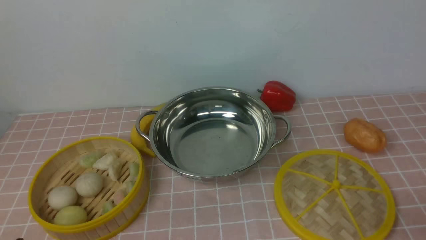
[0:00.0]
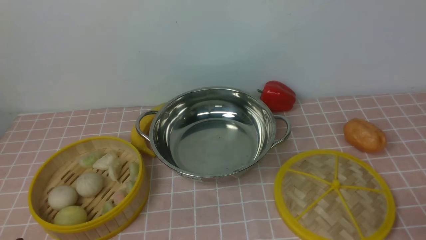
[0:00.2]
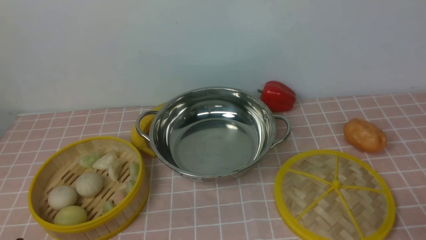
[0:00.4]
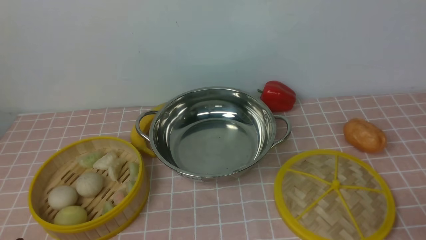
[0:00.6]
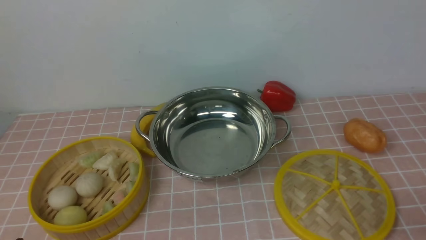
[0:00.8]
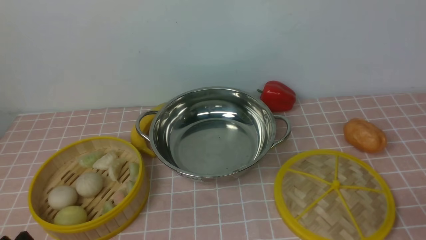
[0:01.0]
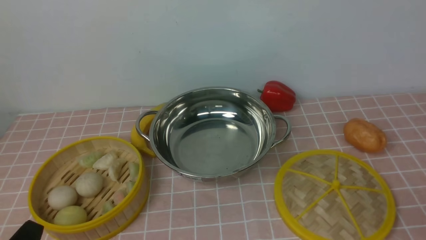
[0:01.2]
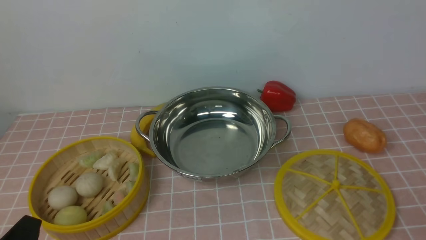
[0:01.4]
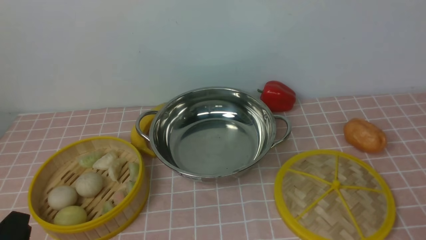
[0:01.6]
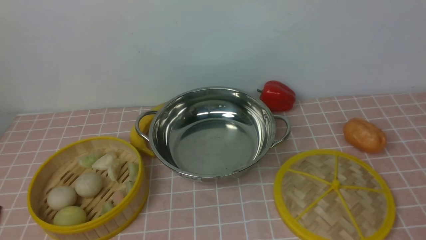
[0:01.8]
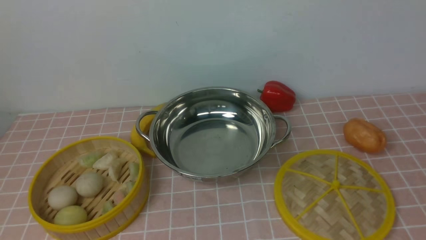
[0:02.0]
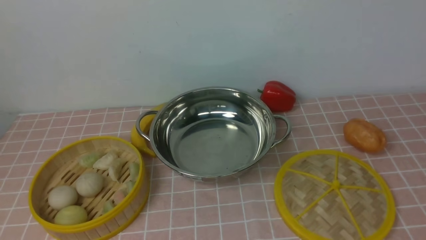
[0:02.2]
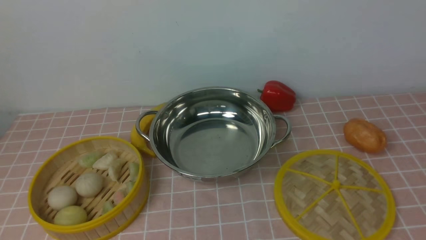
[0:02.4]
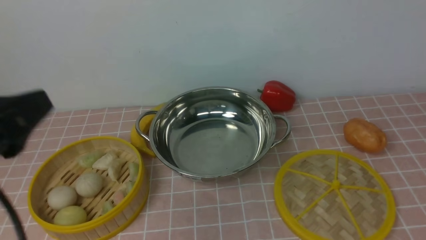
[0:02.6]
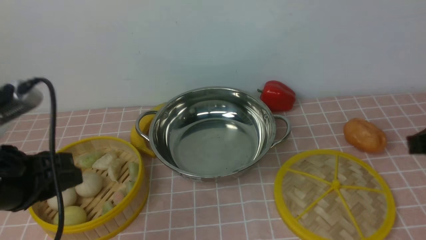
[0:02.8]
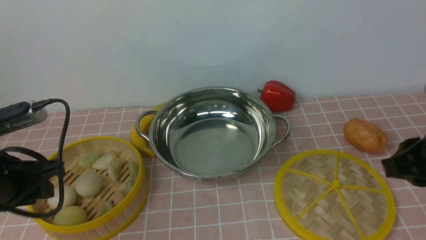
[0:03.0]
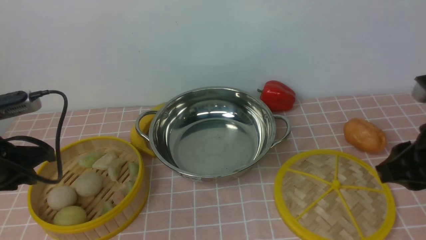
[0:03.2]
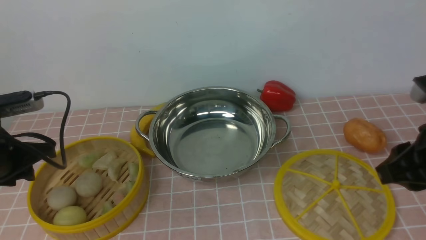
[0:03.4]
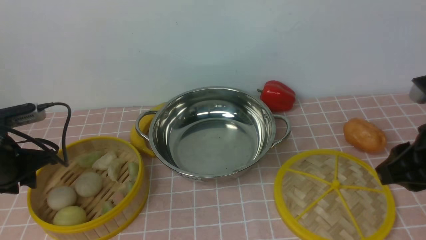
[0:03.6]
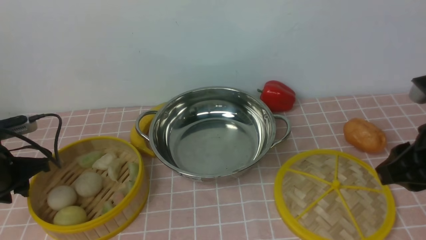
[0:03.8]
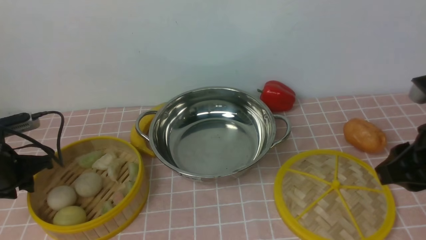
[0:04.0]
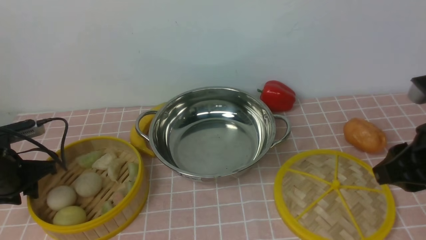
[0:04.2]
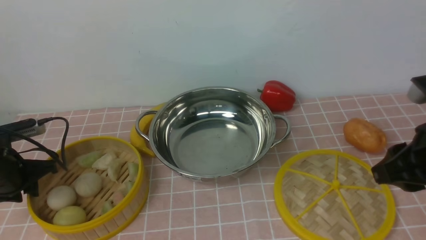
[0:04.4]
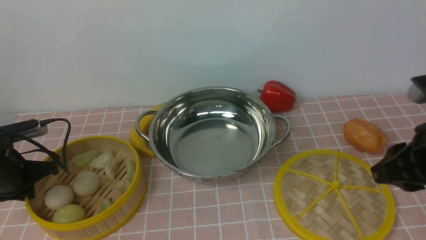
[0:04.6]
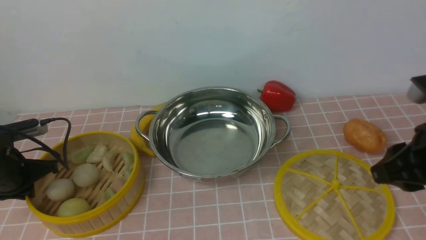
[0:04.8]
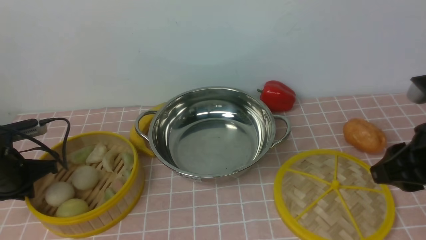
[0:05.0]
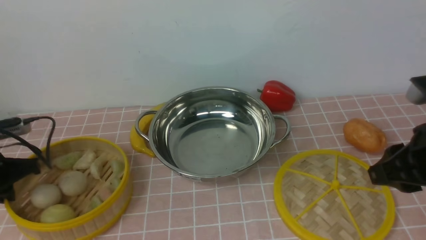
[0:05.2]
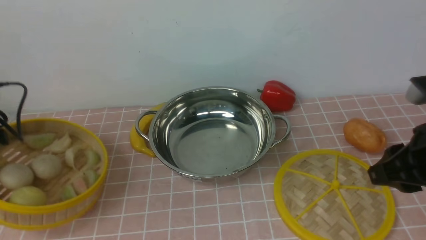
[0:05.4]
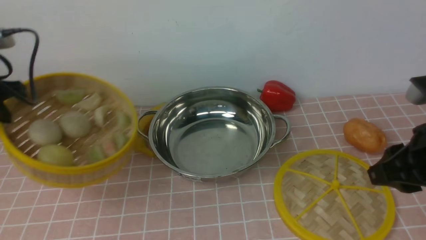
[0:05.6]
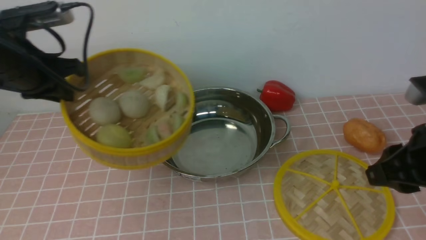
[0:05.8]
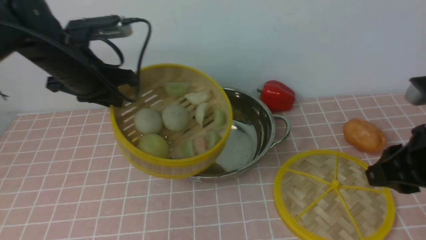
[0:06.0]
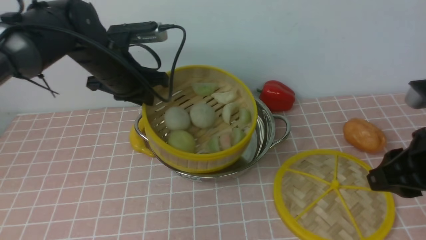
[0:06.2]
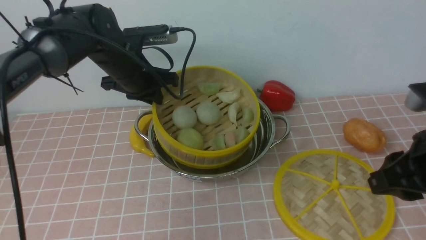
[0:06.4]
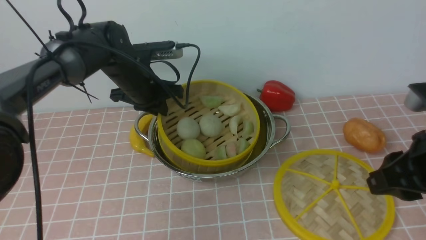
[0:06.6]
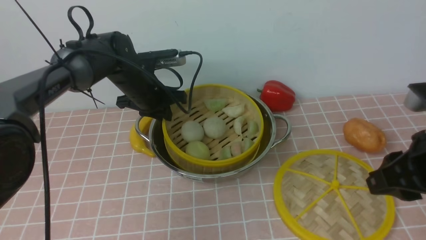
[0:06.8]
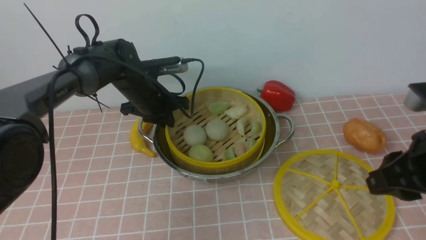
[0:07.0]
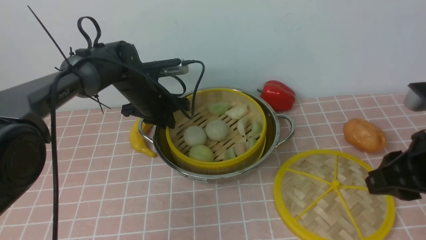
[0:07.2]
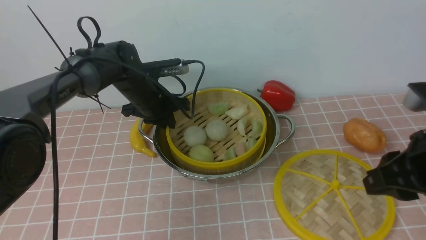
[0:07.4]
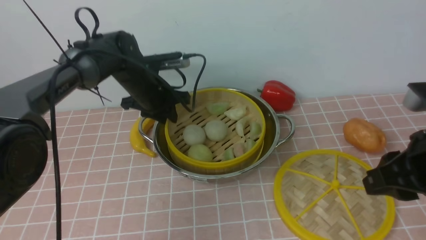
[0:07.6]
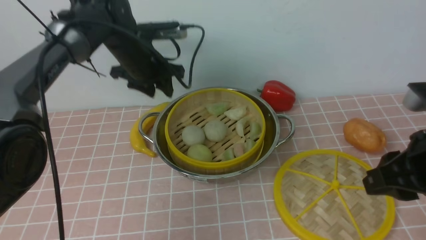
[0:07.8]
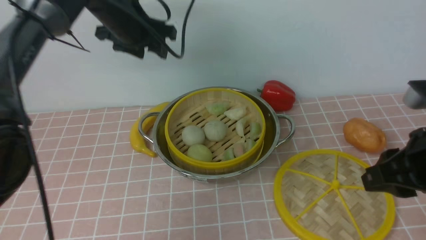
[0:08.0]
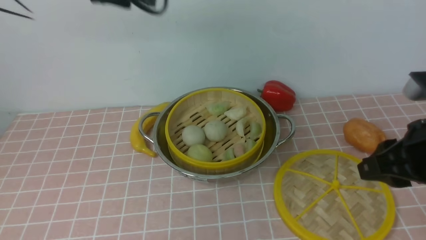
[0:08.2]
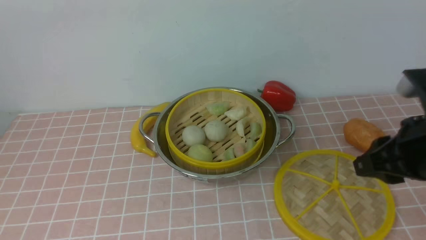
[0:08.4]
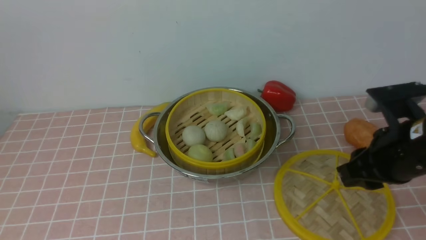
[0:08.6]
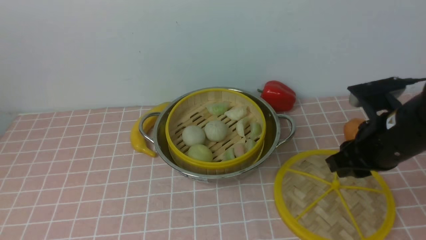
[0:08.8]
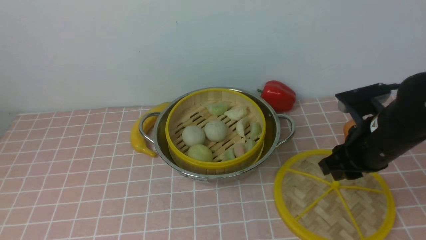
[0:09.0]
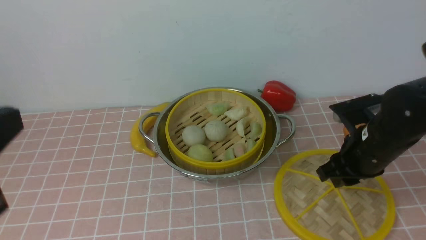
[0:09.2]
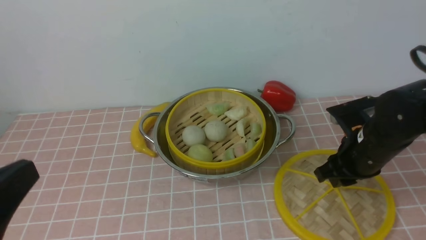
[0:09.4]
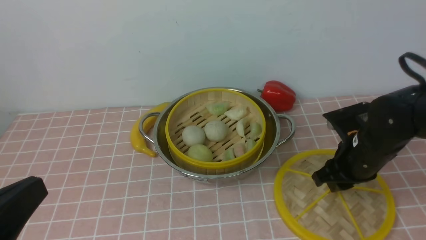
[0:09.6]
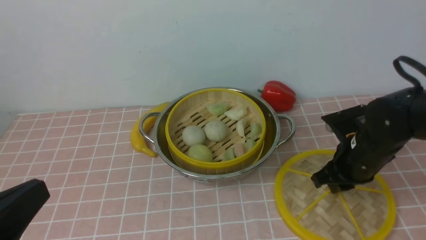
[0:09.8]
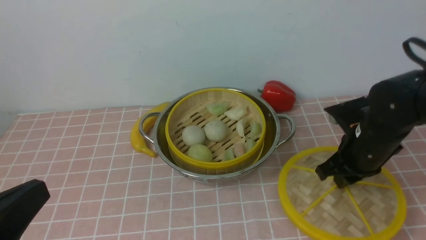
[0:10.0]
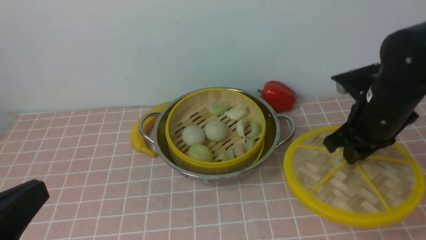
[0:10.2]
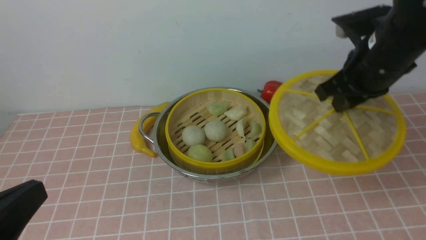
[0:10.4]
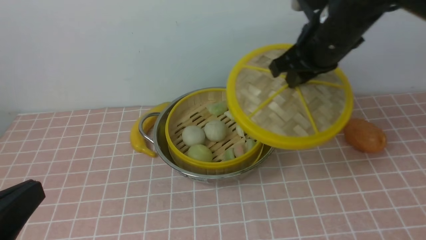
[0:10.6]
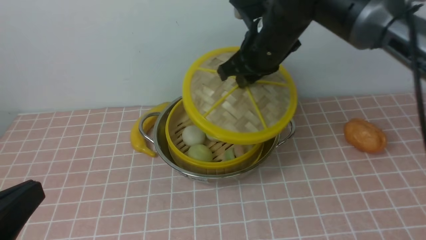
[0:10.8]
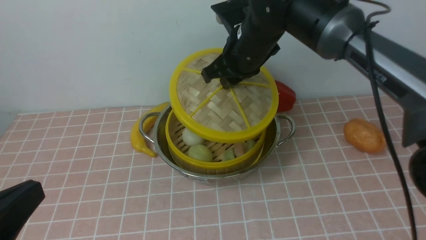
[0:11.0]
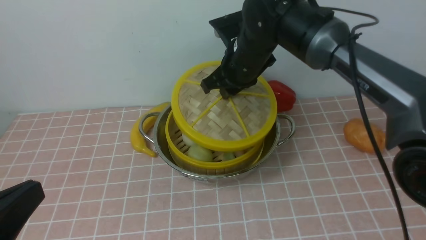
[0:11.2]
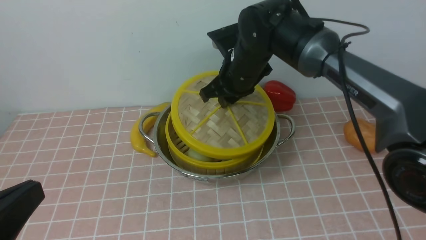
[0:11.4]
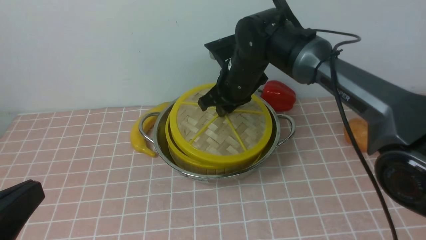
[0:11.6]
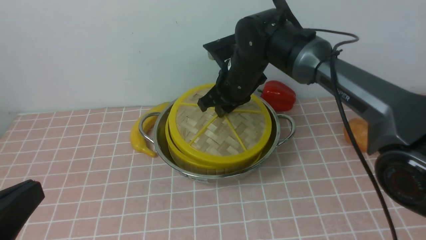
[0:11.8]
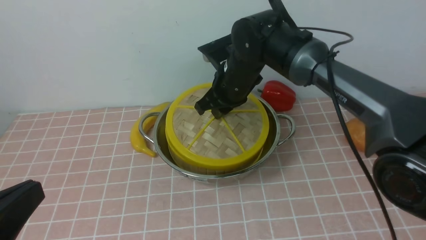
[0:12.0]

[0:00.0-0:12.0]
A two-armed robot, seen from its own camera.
Task of the whole recording: place the steamer in the pot on the pink tablecloth, and put the lid on the steamer.
Step, 0:00.0 to 0:05.2: use the left arm to lift the steamer closest to it.
Step, 0:05.4 to 0:07.6: use the left arm to put the steamer into the iron steamer pot in the middle.
Step, 0:07.8 to 0:10.0: use the right arm to lift the lid of the steamer.
0:01.6 to 0:03.0: The left gripper shifts approximately 15 cm forward and upward, while the right gripper goes roughly 15 cm forward, upward and to the left.
0:03.0 to 0:04.4: The left gripper travels downward, forward and to the left by roughly 20 cm.
0:04.4 to 0:06.0: The left gripper shifts roughly 20 cm upward, to the right and forward, and closes.
0:06.0 to 0:07.6: The left gripper moves downward, forward and to the right, about 15 cm.
0:07.6 to 0:09.0: The right gripper is displaced forward and downward by roughly 10 cm; the left gripper moves backward and upward, about 50 cm, and closes its fingers.
0:09.0 to 0:10.4: The right gripper heads upward and forward, covering some 10 cm, while the left gripper shifts about 20 cm downward.
0:10.4 to 0:12.0: The right gripper travels to the left and forward by approximately 20 cm.

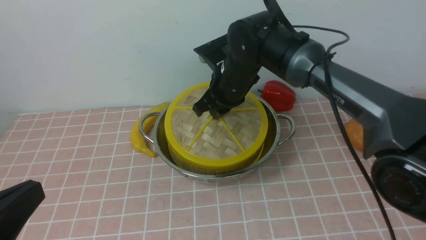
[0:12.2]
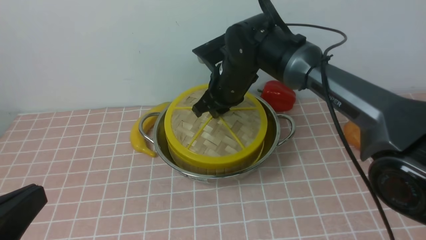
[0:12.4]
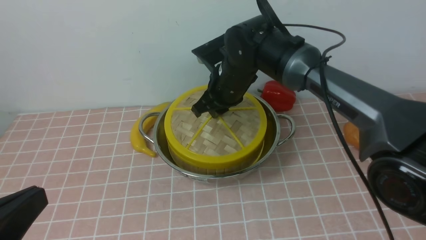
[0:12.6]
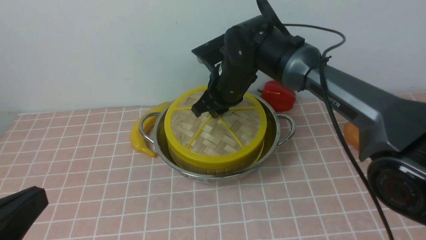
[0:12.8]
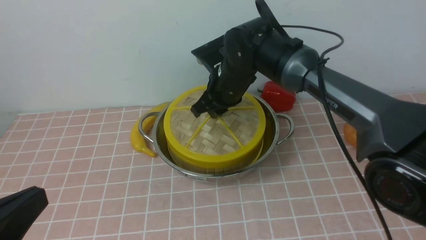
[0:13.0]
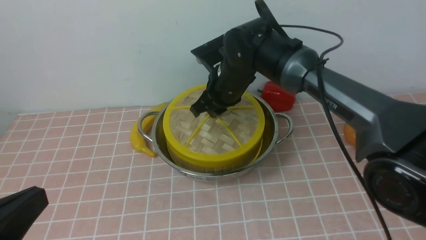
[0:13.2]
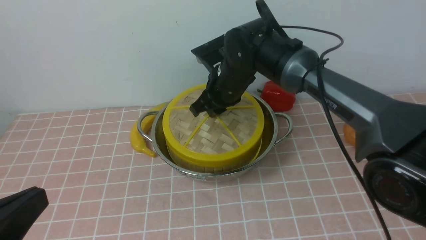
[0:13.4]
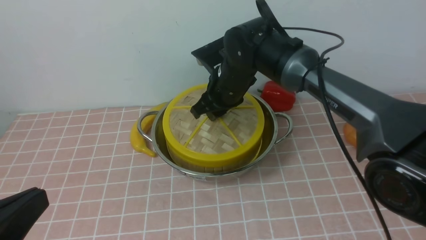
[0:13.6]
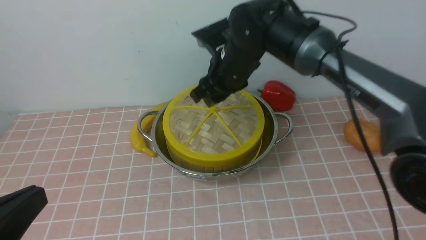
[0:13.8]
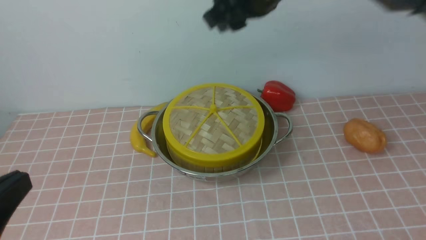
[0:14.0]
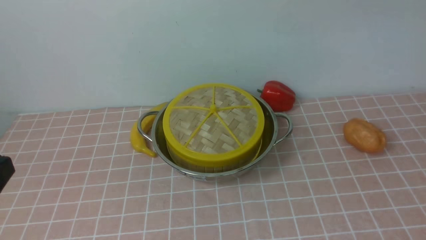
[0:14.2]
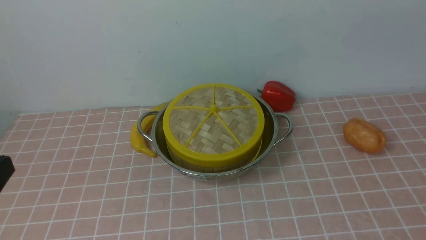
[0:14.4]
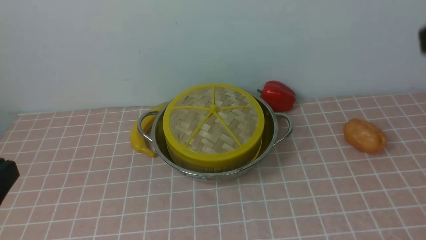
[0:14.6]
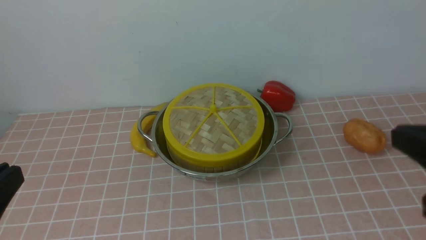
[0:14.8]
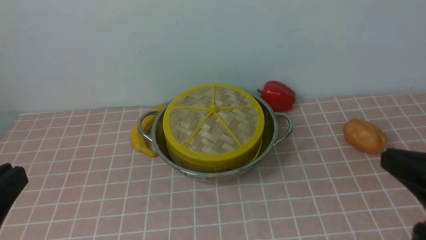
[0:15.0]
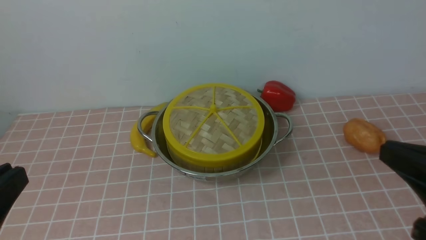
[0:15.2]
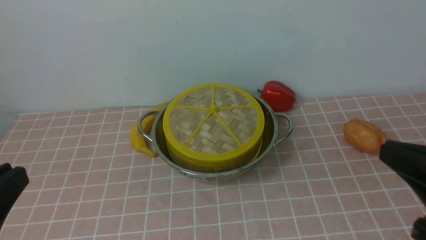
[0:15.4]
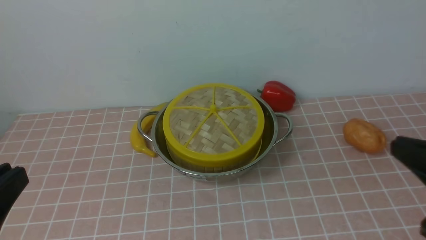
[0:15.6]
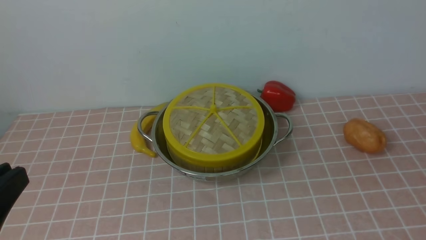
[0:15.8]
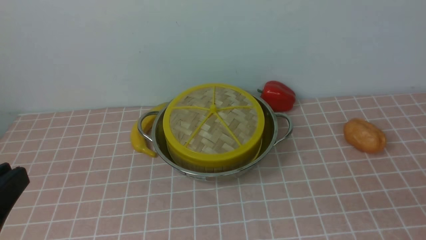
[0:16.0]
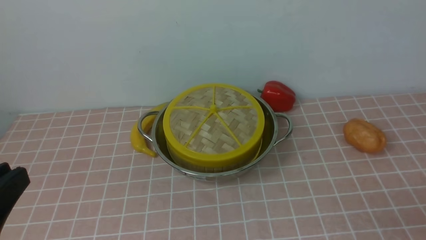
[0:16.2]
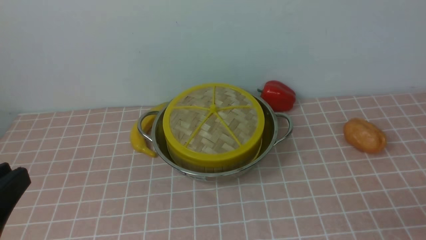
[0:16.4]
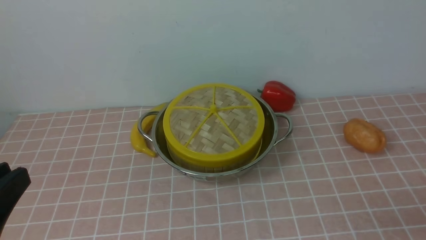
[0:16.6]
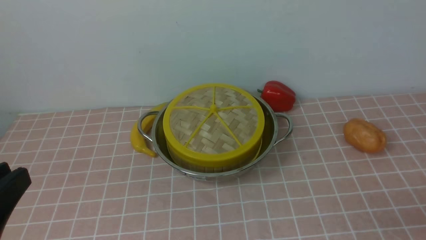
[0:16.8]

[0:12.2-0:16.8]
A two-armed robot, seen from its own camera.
Task of the whole recording: place the steamer in the pot on the pink tablecloth, and put the lid on the steamer.
0:12.2 to 0:13.8: The right gripper opens up.
0:13.8 to 0:15.2: The right gripper heads backward and to the right, covering about 35 cm, and closes up.
0:15.2 to 0:16.8: The right gripper heads downward, to the right and backward, covering approximately 15 cm, and opens.
